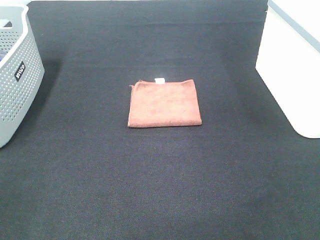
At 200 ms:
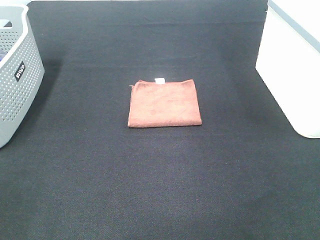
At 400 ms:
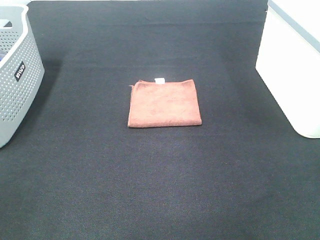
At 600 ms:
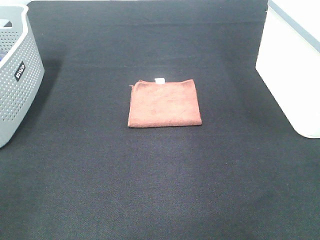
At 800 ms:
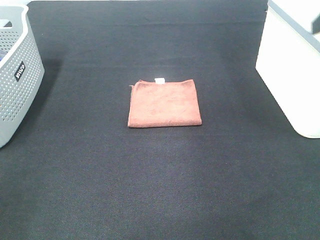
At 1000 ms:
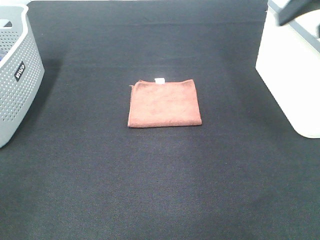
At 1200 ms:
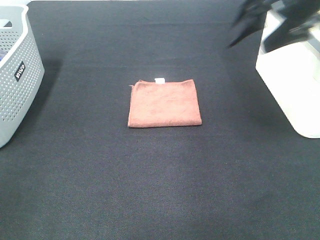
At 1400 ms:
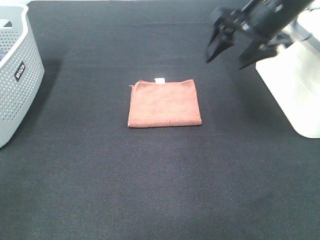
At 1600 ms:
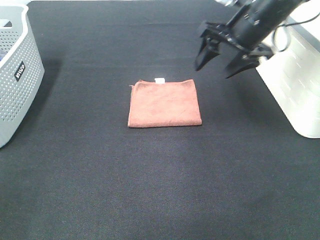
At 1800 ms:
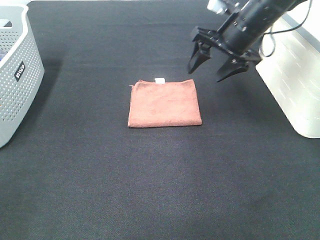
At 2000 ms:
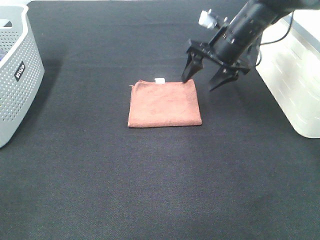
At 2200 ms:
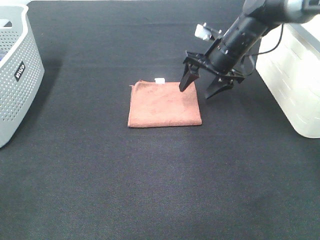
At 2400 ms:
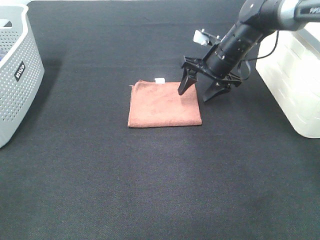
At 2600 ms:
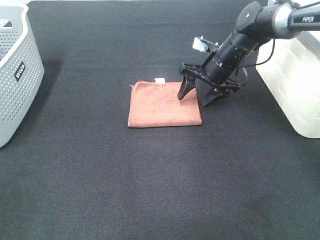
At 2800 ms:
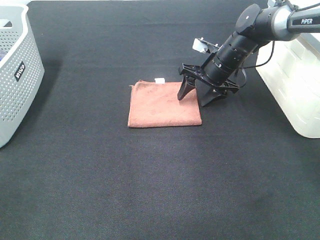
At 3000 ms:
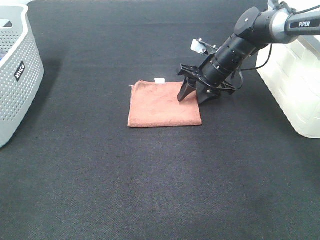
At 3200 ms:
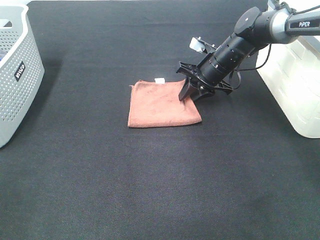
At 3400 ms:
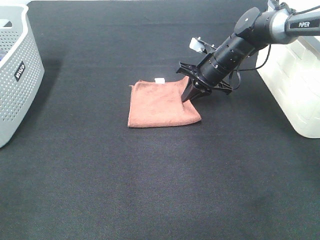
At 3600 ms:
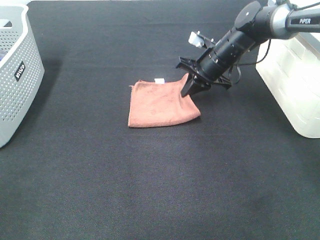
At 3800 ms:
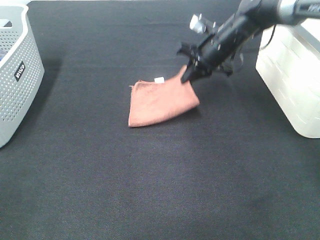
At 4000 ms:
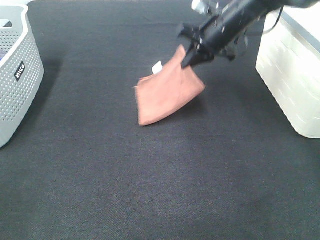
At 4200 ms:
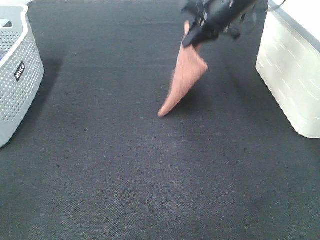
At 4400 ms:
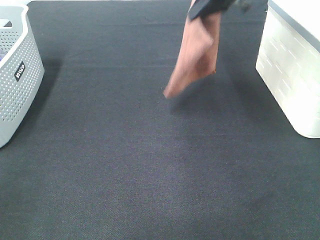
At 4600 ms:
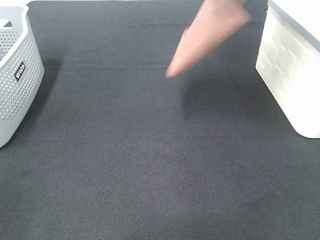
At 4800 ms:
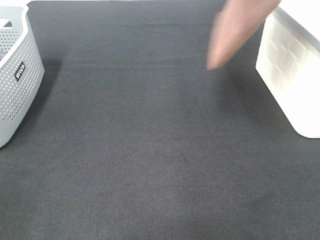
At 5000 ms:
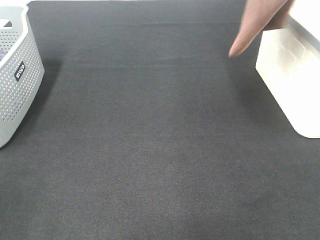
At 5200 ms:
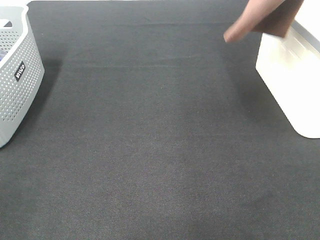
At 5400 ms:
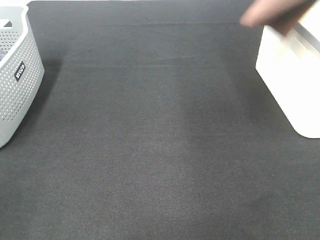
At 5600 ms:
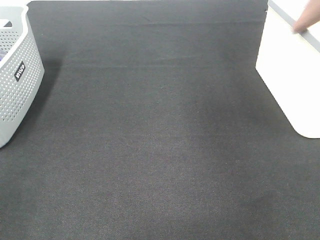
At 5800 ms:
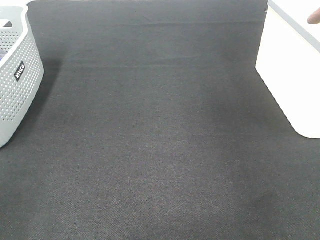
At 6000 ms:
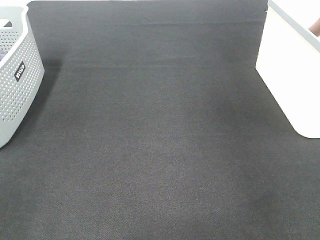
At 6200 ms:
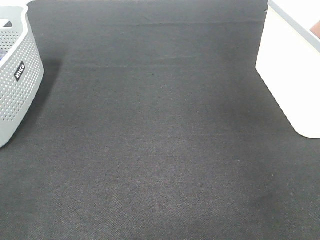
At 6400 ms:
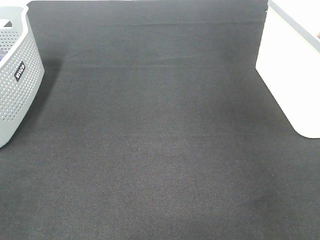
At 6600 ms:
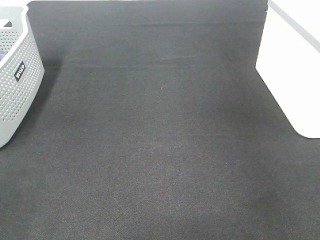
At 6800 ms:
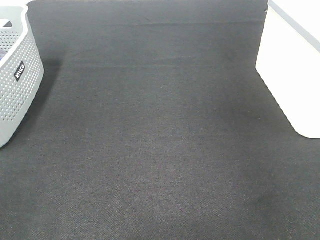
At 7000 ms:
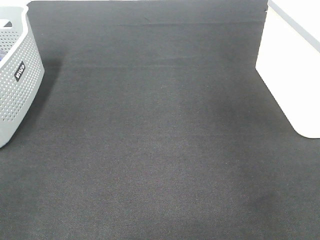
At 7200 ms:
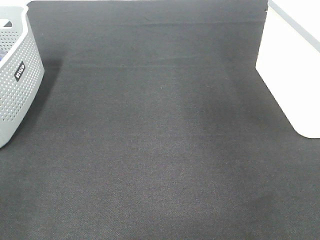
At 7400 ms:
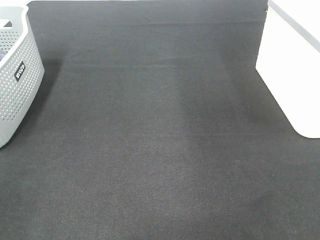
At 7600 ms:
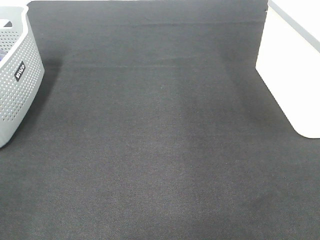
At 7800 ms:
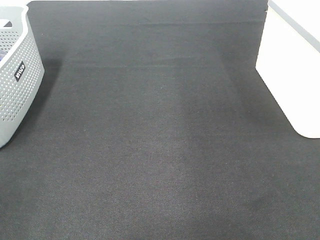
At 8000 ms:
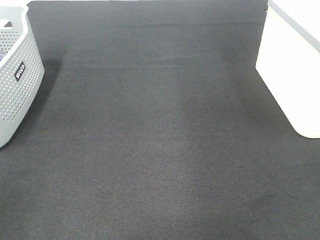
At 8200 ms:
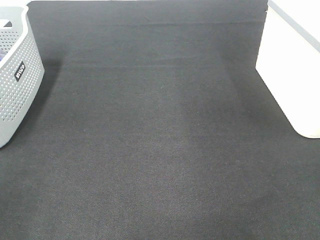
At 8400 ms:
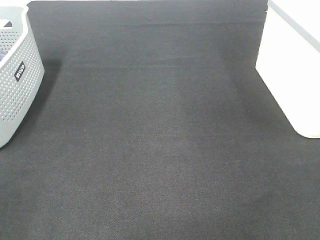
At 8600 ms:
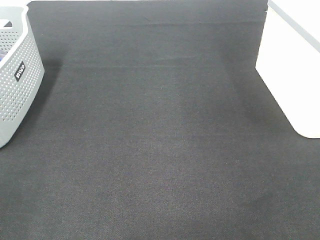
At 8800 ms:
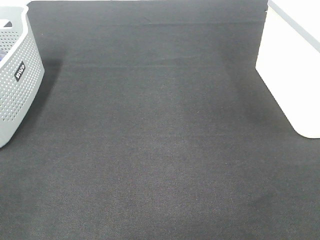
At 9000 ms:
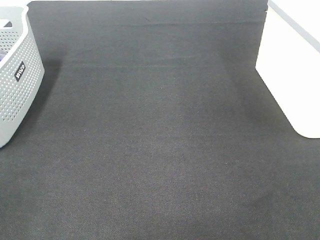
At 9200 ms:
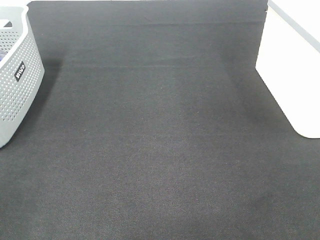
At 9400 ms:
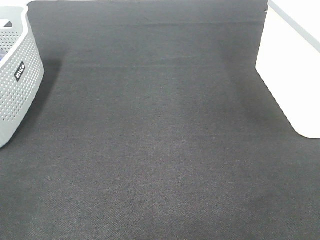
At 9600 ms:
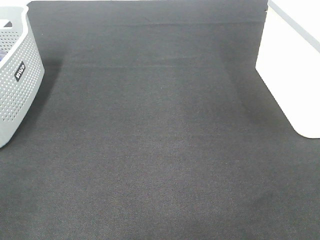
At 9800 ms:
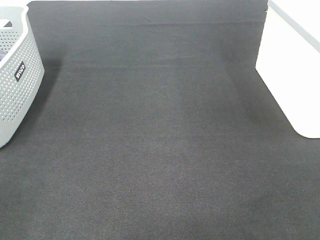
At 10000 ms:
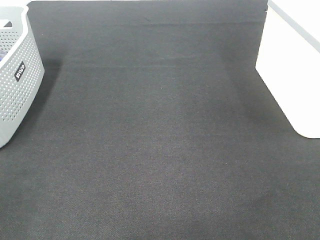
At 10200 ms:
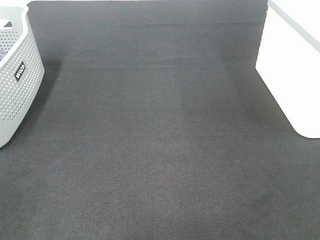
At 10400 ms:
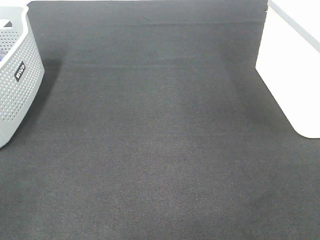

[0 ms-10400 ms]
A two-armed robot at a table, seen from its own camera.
Step, 0 ms to 3200 ms: Right hand: grab the folded brown towel.
Step, 3400 ms to 6800 ms: Right hand: place the brown towel in right basket.
0 ms to 1400 ms: The right gripper goes some 35 cm forward.
1400 ms to 3000 ms: The right gripper goes some 20 cm downward and forward, and closes its fingers.
3000 ms to 4400 ms: The right gripper goes some 20 cm upward, and closes up.
4400 ms to 6000 ms: The right gripper is displaced to the right and upward by roughly 25 cm.

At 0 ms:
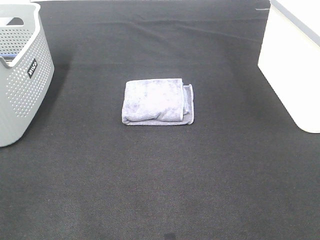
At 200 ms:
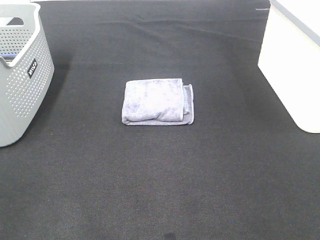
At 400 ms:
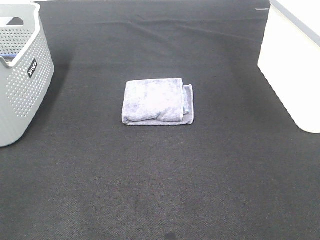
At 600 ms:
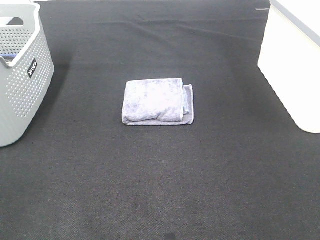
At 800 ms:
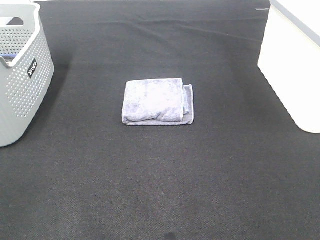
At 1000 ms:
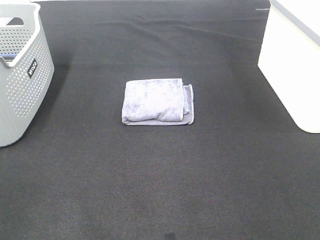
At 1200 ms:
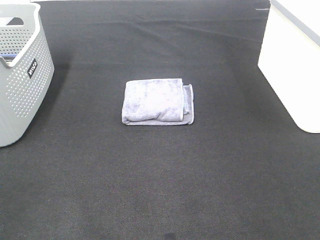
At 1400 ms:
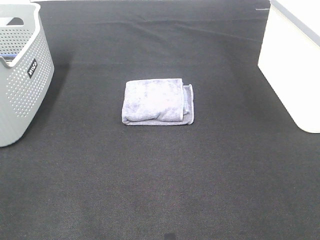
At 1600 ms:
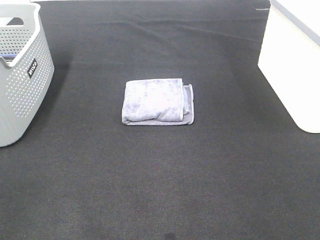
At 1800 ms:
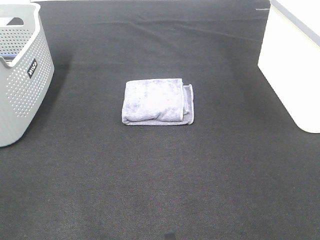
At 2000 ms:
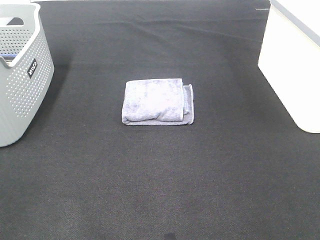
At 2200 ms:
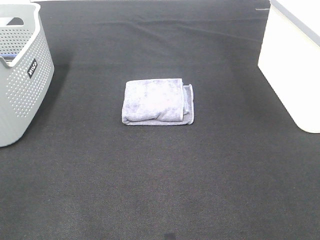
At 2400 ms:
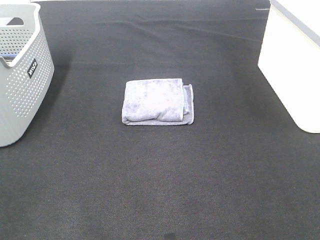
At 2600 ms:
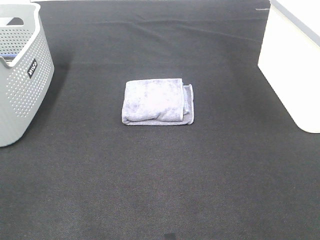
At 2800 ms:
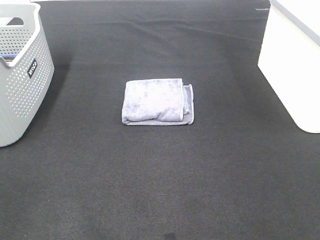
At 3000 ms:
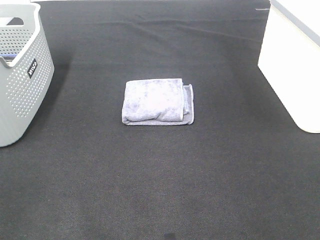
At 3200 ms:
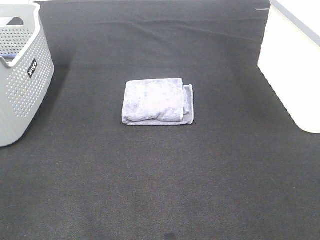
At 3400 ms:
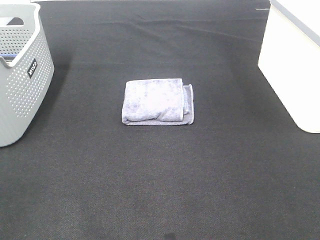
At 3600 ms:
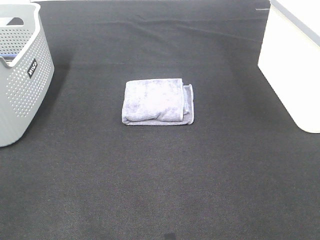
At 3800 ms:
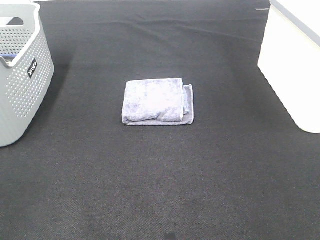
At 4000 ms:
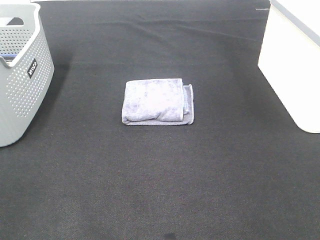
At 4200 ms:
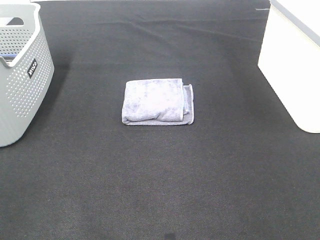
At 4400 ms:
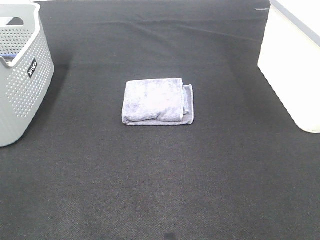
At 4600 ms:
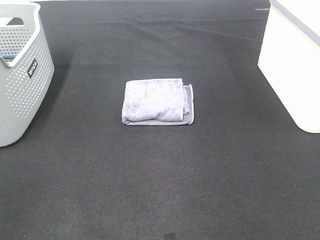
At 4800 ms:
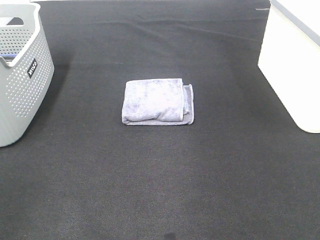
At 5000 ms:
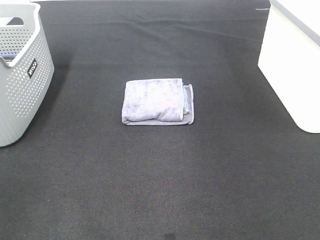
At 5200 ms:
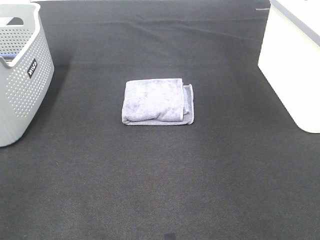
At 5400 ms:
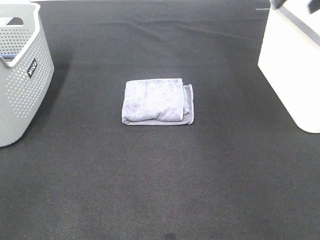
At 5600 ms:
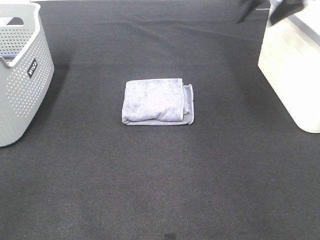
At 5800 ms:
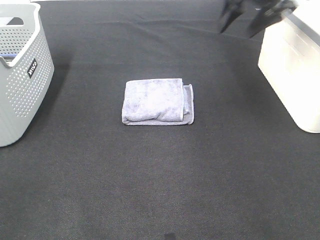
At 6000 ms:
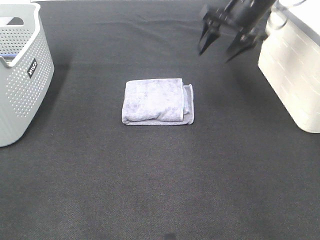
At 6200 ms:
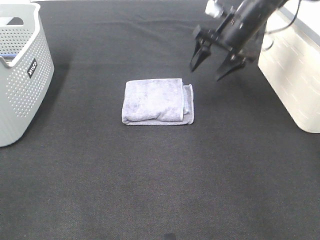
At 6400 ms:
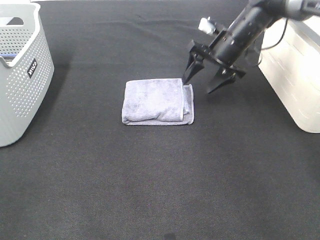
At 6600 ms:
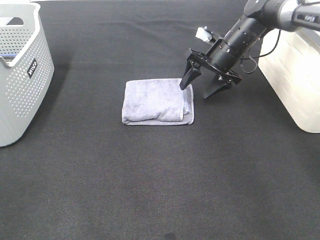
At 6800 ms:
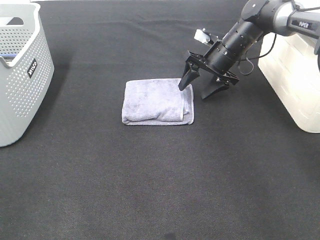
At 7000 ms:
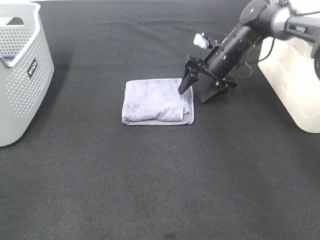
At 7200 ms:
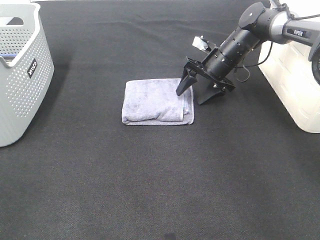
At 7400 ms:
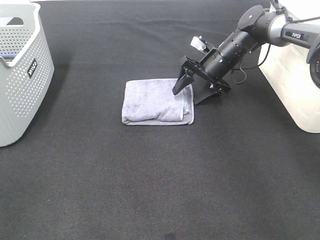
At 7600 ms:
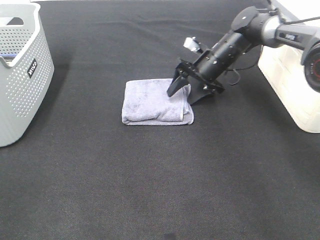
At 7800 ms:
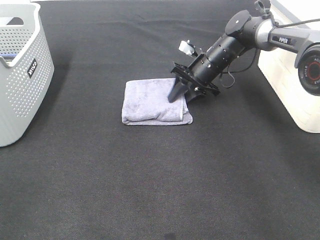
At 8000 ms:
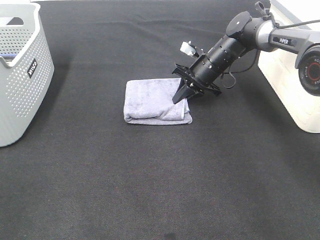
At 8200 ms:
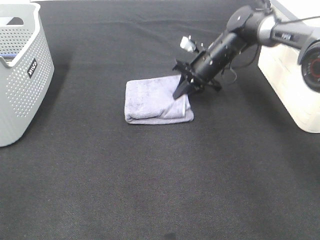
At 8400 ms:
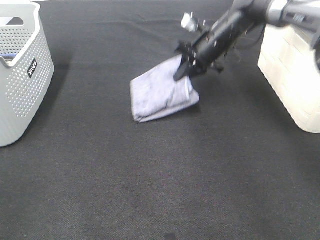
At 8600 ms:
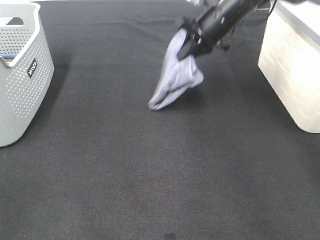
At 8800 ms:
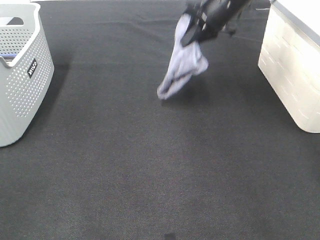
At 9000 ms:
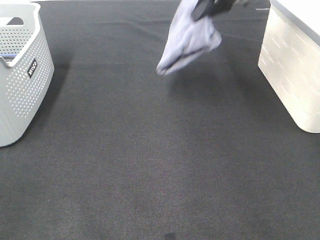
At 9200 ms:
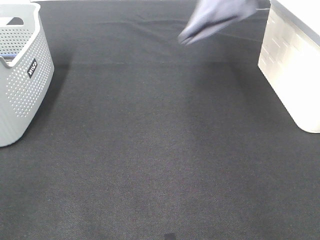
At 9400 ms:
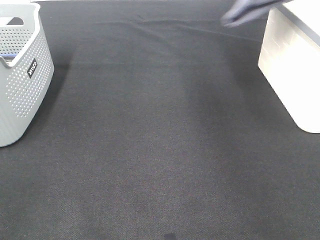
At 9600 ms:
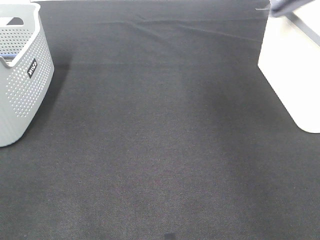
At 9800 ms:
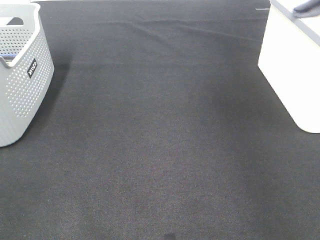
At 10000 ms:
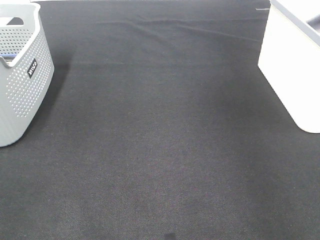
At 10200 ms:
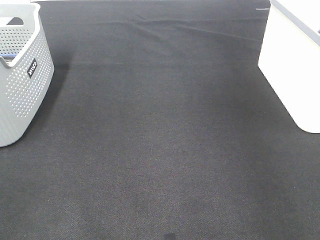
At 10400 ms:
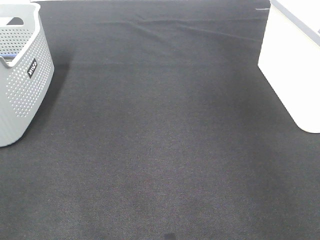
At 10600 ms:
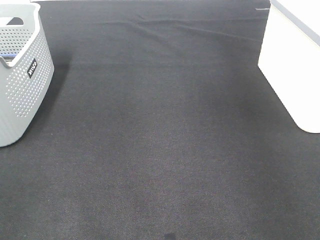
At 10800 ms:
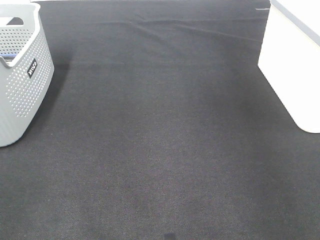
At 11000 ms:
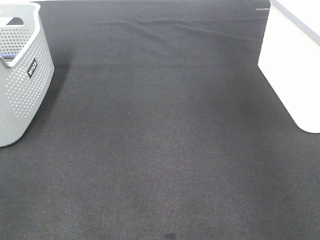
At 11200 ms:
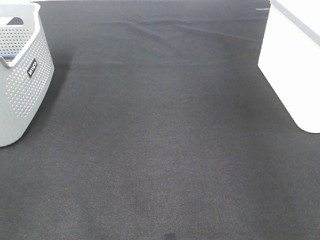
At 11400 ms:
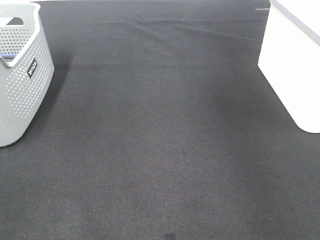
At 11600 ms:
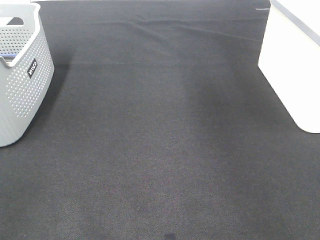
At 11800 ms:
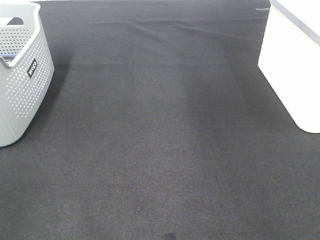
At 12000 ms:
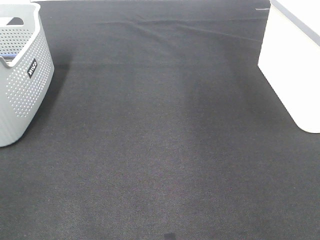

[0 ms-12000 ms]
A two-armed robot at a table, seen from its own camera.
Step, 0 ms to 8000 ms: Right hand: grab the folded grey towel.
Step, 8200 ms to 10800 ms: Right hand: place the grey towel in right basket.
0 ms to 3000 ms: Both grippers stay put.
4400 ms to 6000 ms: The right gripper is displaced forward by roughly 35 cm.
6000 ms to 7600 ms: The right gripper moves downward, about 15 cm.
7600 ms to 9000 ms: The right gripper travels upward by about 20 cm, and closes up.
9000 ms to 10400 ms: The right gripper goes some 25 cm to the right.
